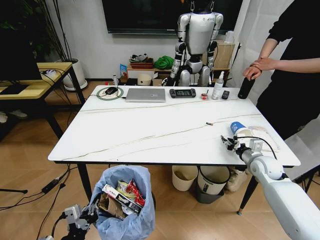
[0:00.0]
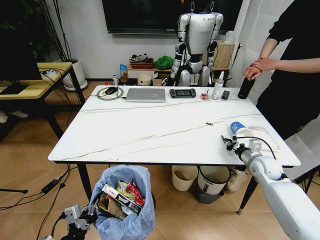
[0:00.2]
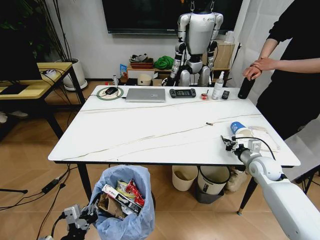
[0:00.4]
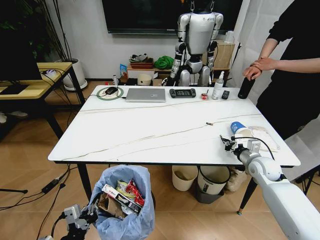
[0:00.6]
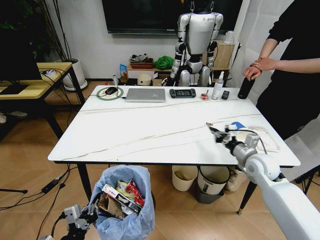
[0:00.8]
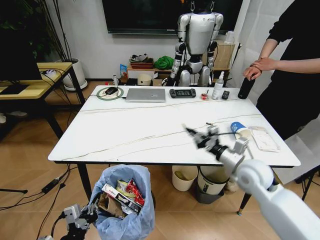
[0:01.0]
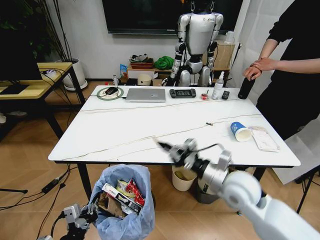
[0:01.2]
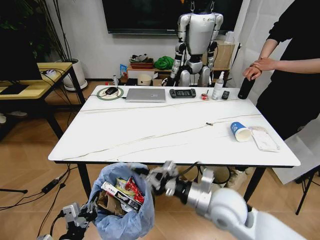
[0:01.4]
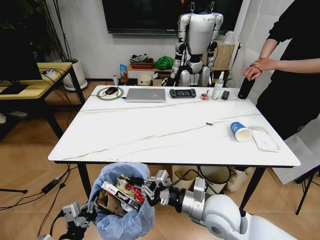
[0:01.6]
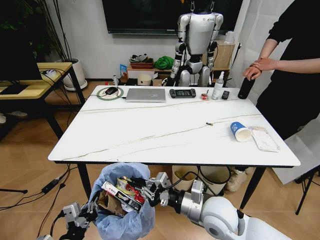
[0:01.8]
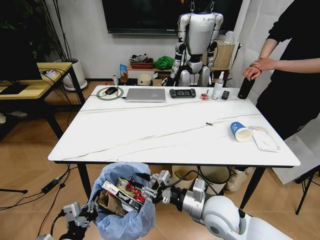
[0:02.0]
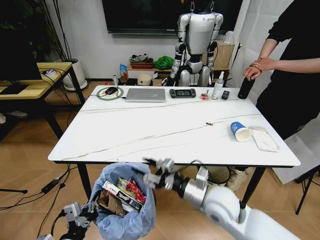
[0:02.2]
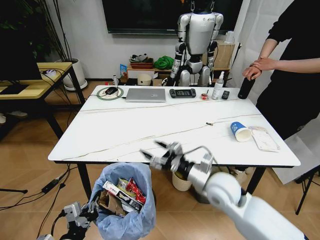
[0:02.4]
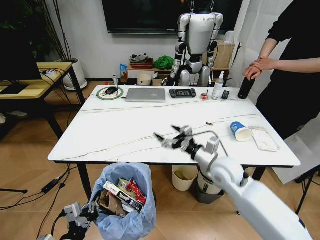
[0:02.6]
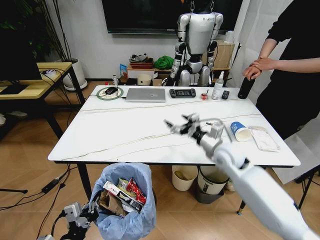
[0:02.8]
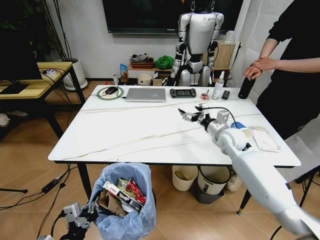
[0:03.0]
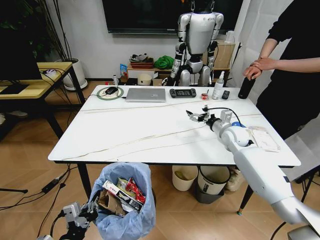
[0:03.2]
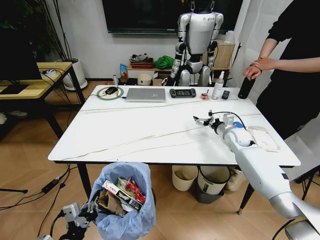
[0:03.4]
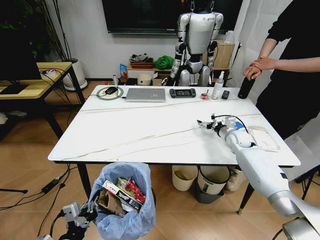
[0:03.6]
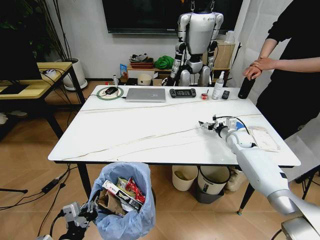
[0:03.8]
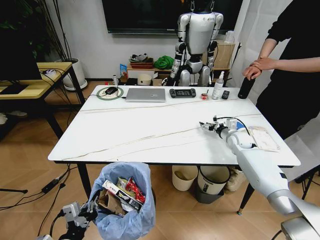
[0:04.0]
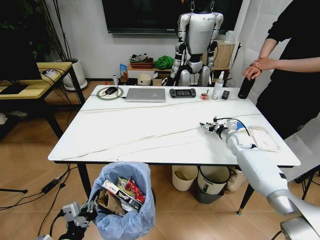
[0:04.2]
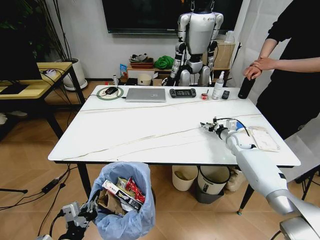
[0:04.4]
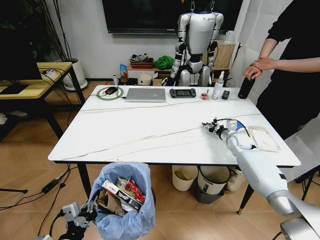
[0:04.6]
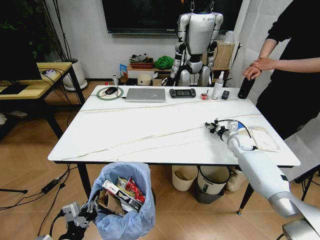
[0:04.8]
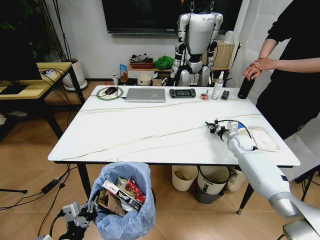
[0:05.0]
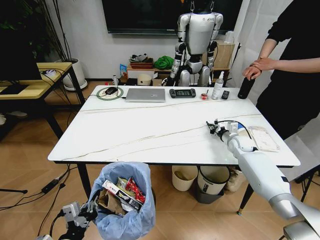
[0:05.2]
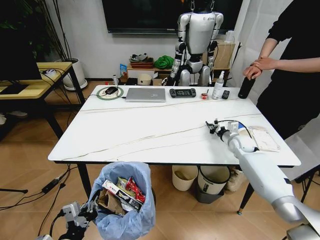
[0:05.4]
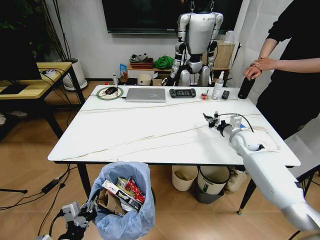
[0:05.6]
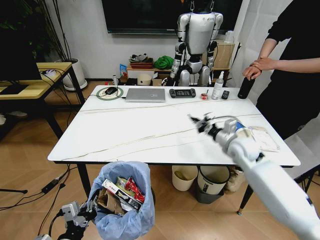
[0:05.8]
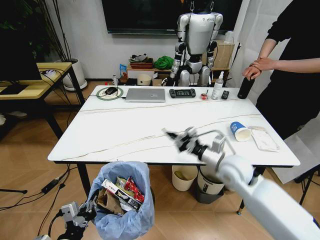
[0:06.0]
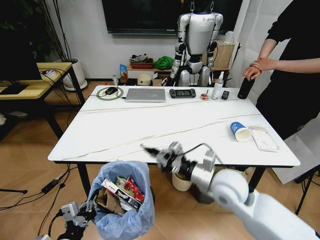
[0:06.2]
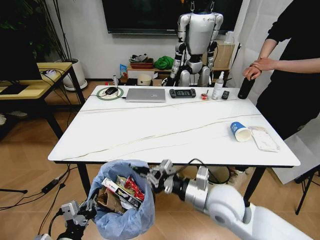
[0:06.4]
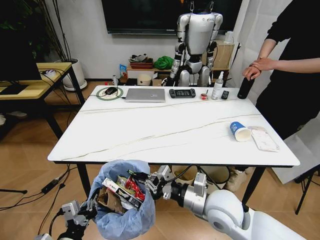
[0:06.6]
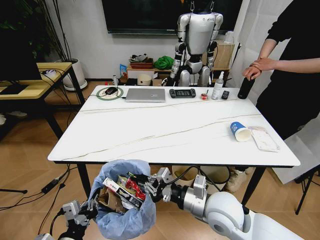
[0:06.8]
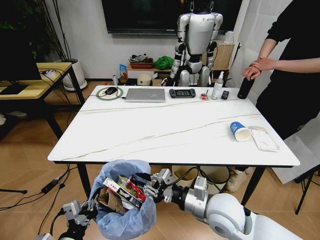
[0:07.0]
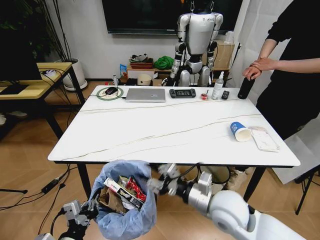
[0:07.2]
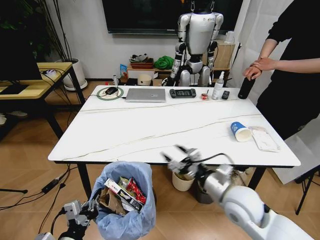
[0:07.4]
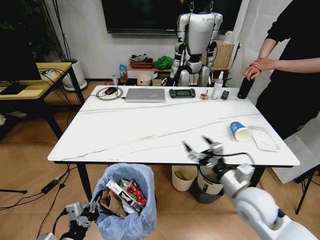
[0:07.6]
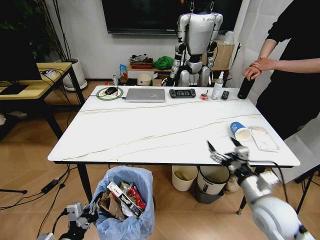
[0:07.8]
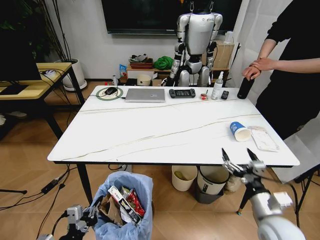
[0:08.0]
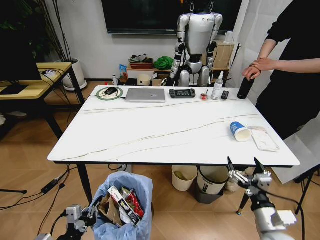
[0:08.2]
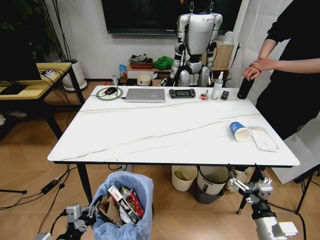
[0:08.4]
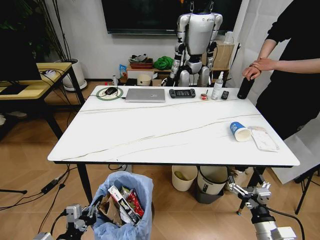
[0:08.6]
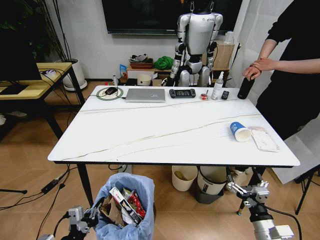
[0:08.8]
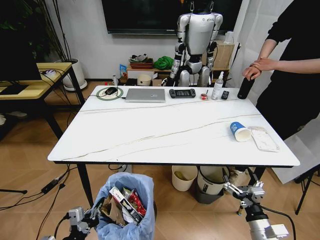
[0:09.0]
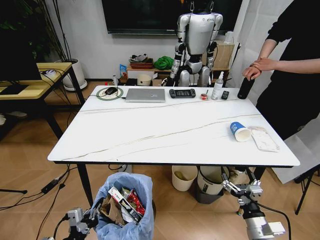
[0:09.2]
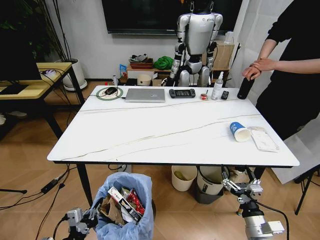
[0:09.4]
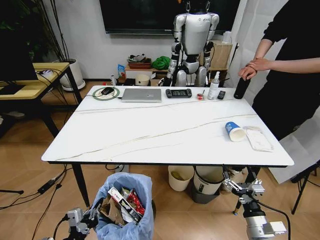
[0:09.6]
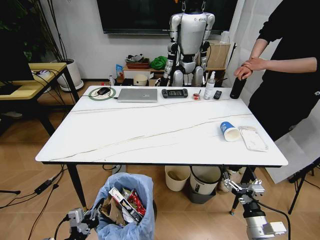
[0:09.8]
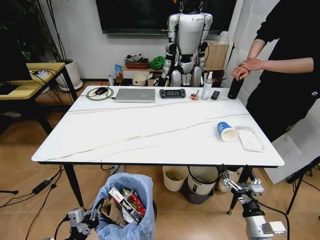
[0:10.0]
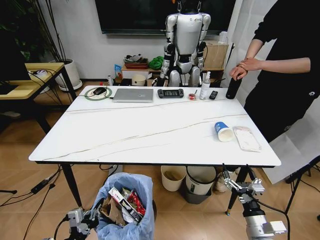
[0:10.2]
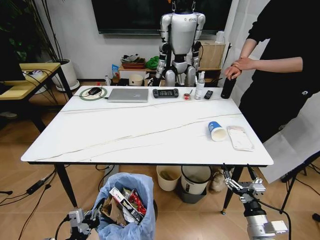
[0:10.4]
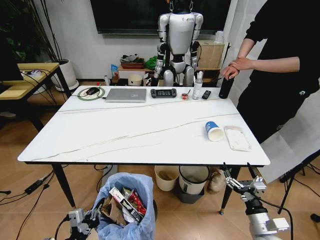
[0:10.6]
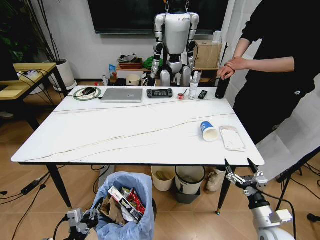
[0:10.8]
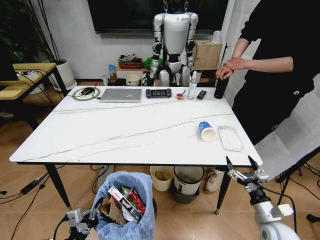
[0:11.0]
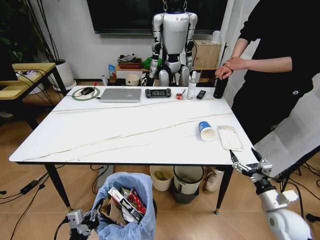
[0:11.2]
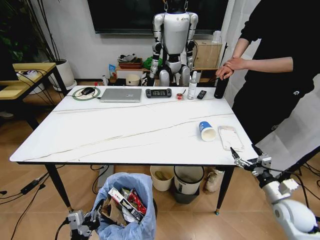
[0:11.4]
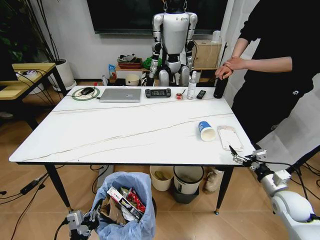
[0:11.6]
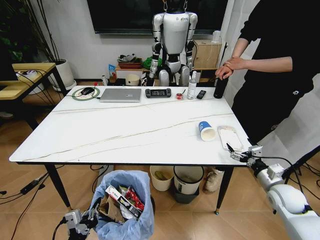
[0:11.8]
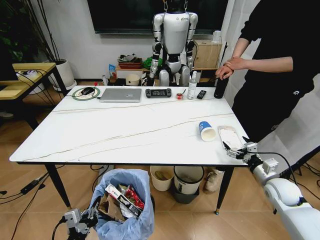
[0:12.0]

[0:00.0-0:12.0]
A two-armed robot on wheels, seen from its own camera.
Task of the whole recording: Pick up the trash bin and place the trash from the table into it.
0:00.0 to 0:01.6: The right gripper goes about 30 cm to the left and backward.
0:01.6 to 0:03.0: The right gripper moves forward and to the right, approximately 25 cm, and opens its fingers.
0:03.0 to 0:04.4: The right gripper heads downward, to the right and forward, covering roughly 15 cm.
0:04.4 to 0:06.0: The right gripper shifts approximately 25 cm backward, to the left and upward, and closes.
0:06.0 to 0:07.6: The right gripper heads backward, covering some 10 cm, and opens up.
0:07.6 to 0:09.0: The right gripper moves downward, backward and to the right, roughly 20 cm.
0:10.4 to 0:12.0: The right gripper moves forward and to the right, approximately 20 cm.

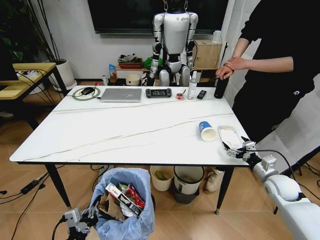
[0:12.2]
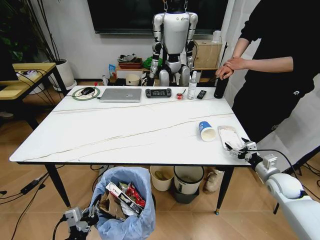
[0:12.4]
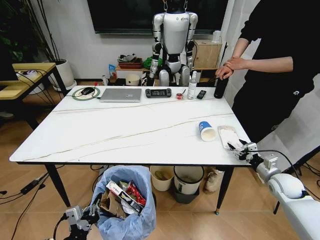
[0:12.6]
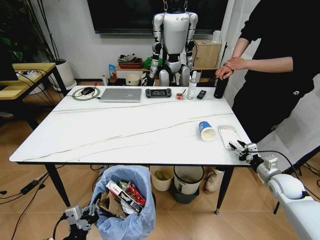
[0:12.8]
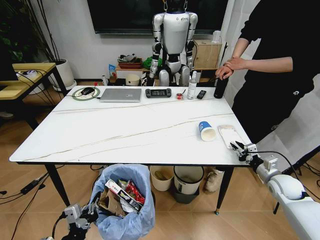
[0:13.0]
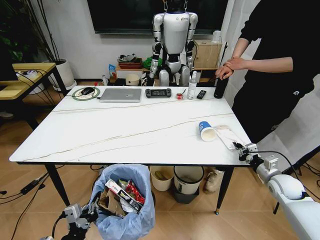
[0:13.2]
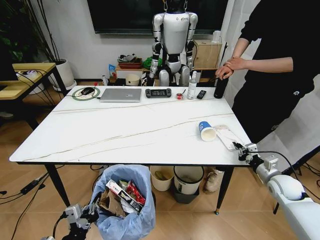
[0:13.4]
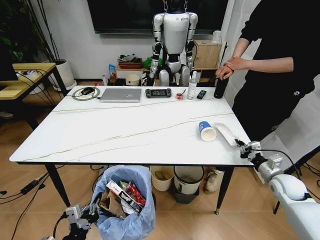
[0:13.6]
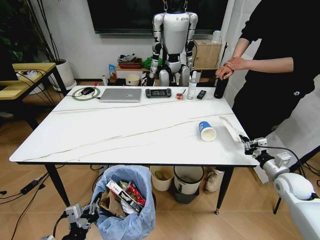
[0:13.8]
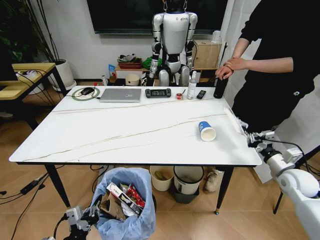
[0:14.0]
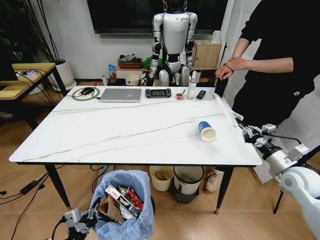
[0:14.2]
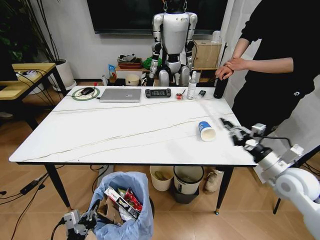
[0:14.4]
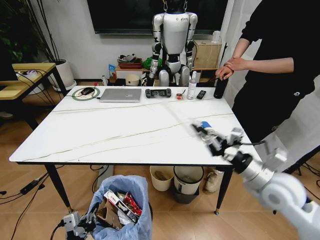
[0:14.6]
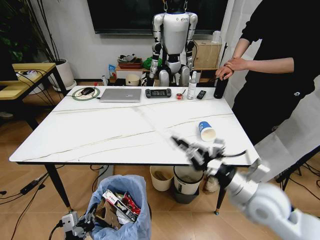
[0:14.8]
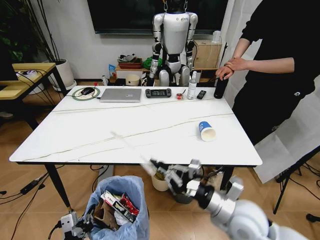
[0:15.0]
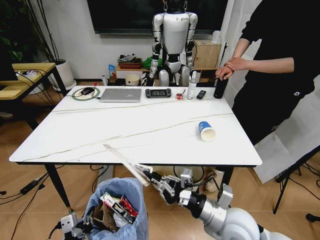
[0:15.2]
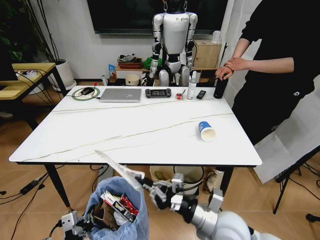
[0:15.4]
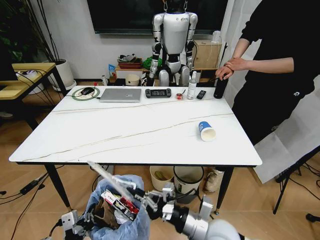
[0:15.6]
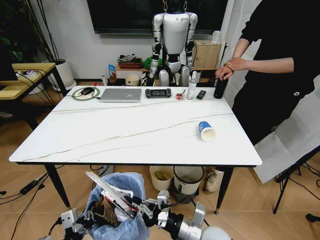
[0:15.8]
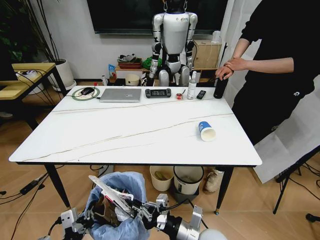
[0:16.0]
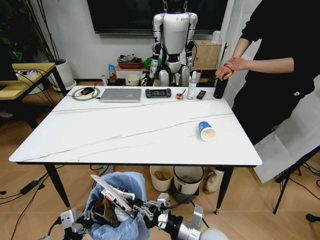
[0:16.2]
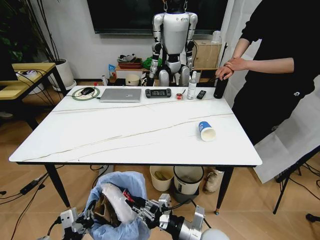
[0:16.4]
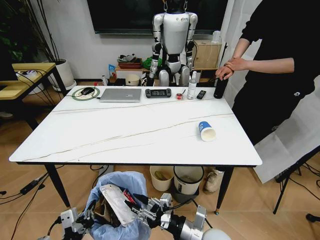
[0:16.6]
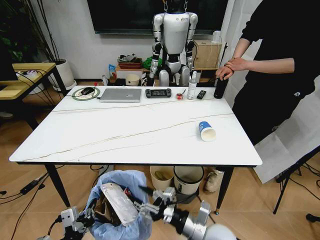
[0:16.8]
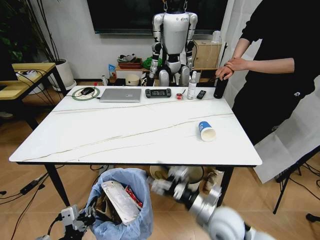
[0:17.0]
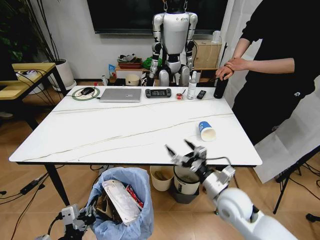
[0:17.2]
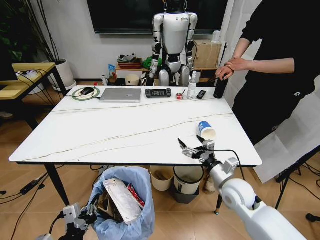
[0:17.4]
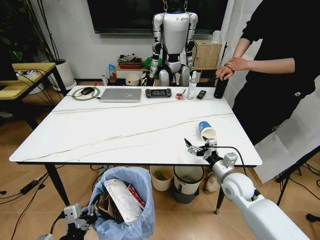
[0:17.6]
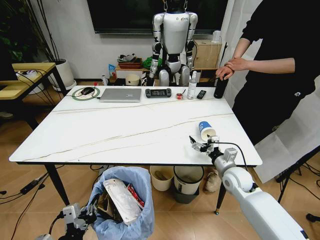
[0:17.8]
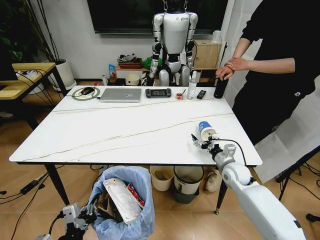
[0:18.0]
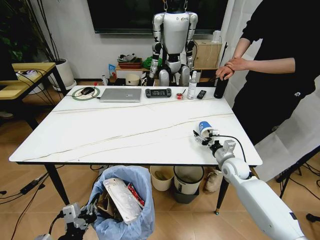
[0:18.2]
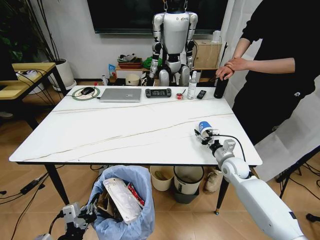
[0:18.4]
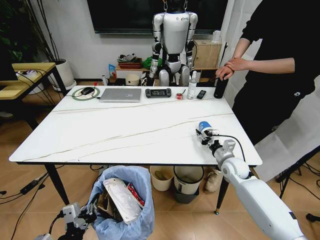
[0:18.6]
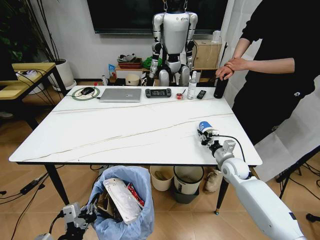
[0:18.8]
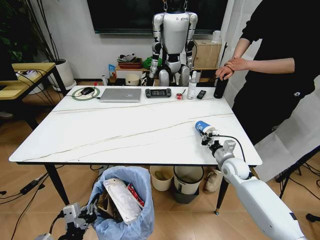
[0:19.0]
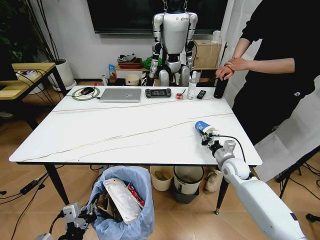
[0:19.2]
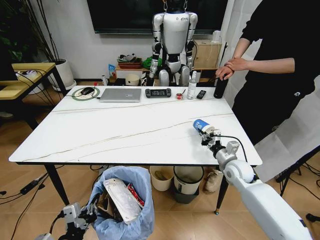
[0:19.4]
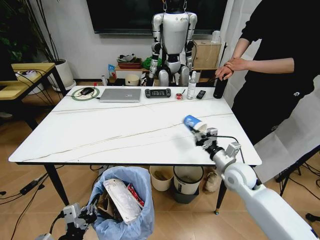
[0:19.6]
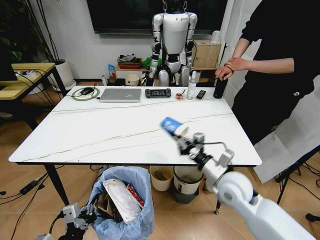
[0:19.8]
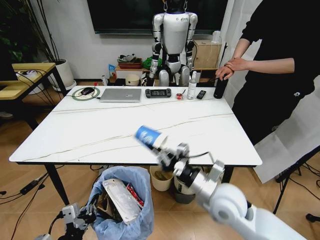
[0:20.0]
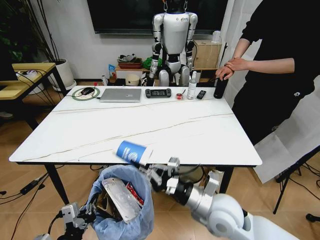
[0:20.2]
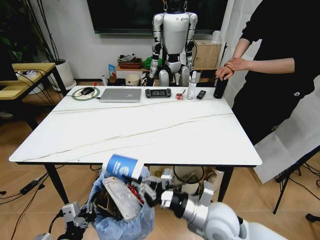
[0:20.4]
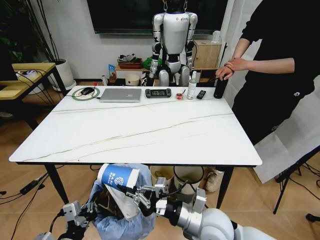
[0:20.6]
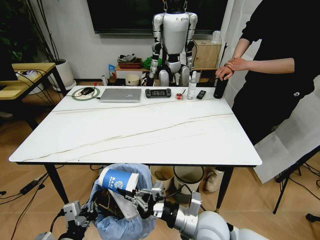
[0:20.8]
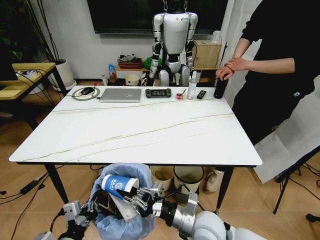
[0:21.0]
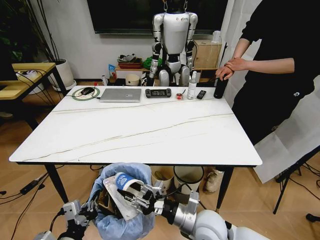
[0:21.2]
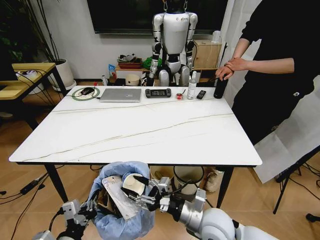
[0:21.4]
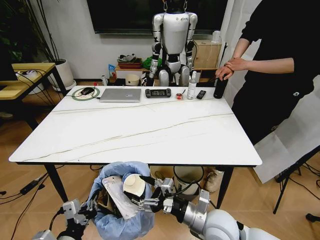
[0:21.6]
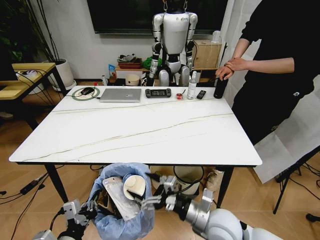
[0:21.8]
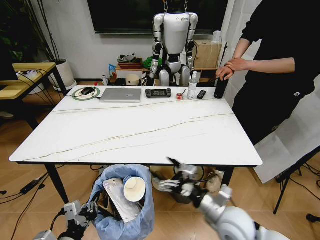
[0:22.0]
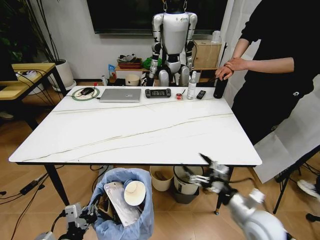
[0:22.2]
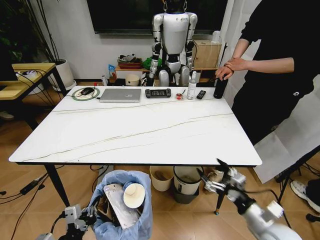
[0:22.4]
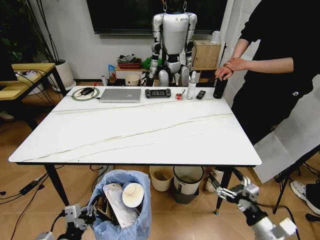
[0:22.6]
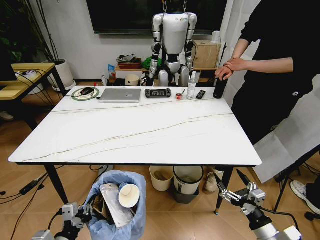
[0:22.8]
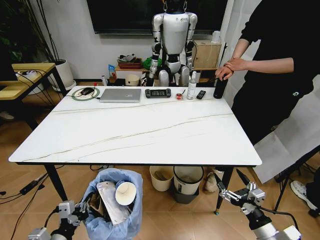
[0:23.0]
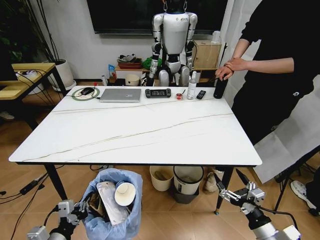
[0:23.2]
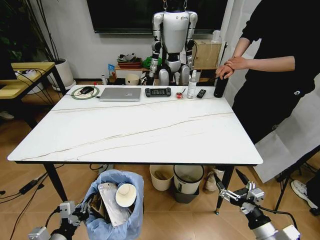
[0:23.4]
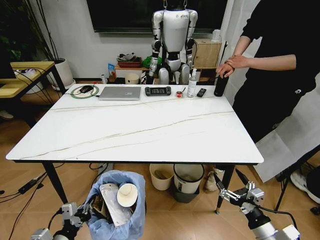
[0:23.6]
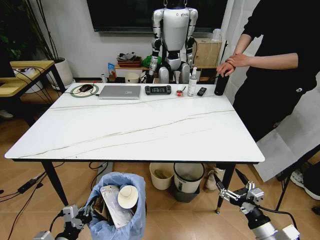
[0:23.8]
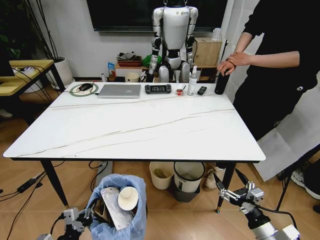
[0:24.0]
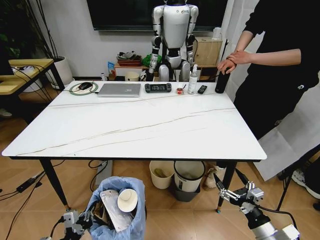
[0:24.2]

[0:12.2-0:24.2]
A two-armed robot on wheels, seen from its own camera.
Task of the whole recording: Pick up the trash bin and place the trash from the table into it.
0:12.2 to 0:13.8: The right gripper closes.
0:13.8 to 0:15.2: The right gripper moves to the left and backward, approximately 30 cm.
0:15.2 to 0:16.6: The right gripper travels downward by approximately 5 cm, and opens its fingers.
0:16.6 to 0:18.2: The right gripper travels forward and to the right by about 30 cm, and opens its fingers.
0:18.2 to 0:19.8: The right gripper goes approximately 15 cm backward, upward and to the left, and closes its fingers.
0:19.8 to 0:21.2: The right gripper goes approximately 15 cm backward, to the left and downward, and opens its fingers.
0:21.2 to 0:22.6: The right gripper goes approximately 20 cm to the right, and opens its fingers.
0:22.6 to 0:24.2: The left gripper goes about 5 cm downward.
